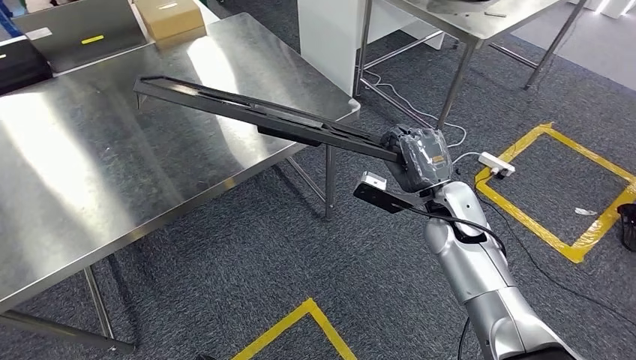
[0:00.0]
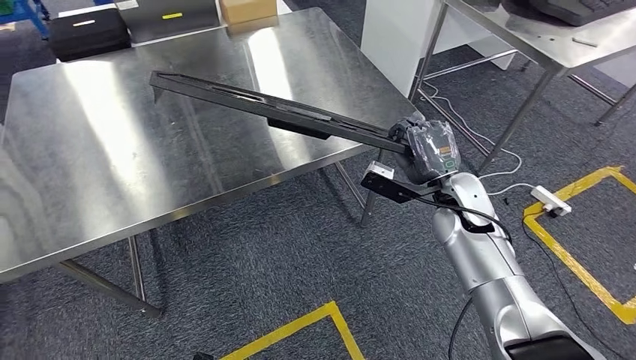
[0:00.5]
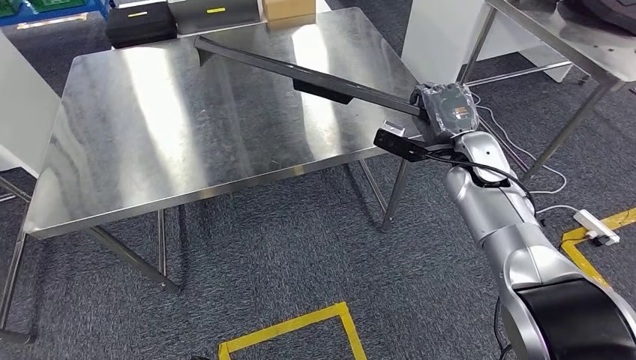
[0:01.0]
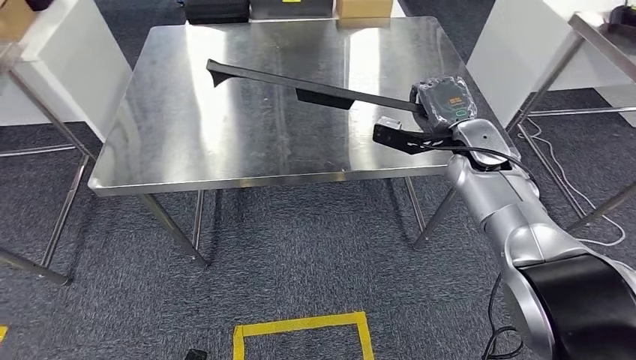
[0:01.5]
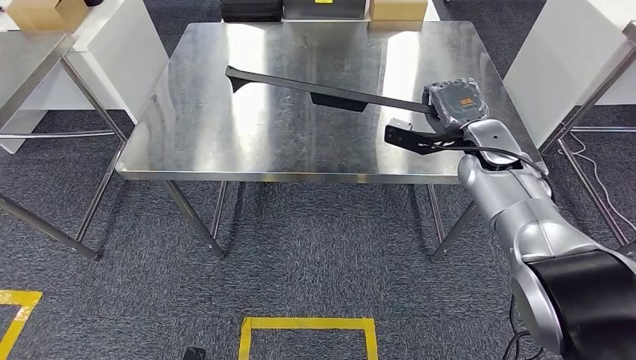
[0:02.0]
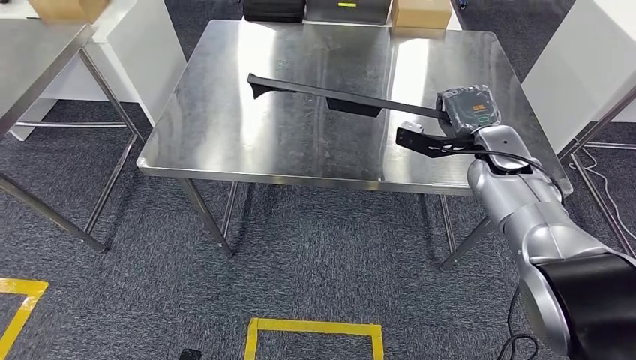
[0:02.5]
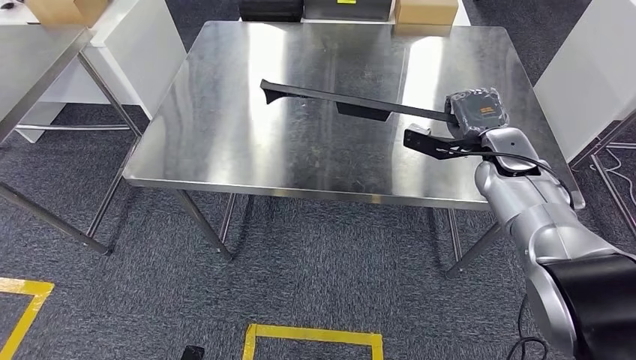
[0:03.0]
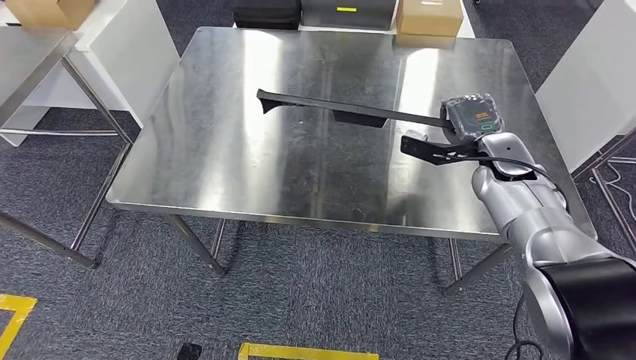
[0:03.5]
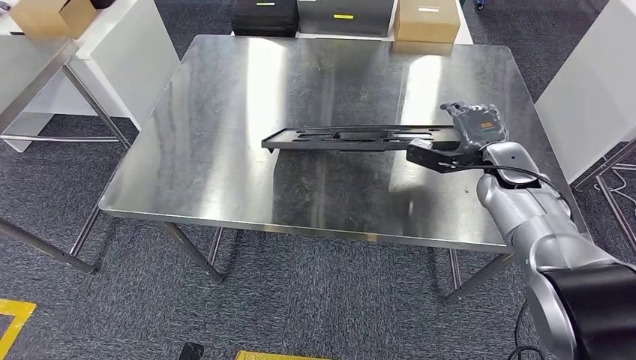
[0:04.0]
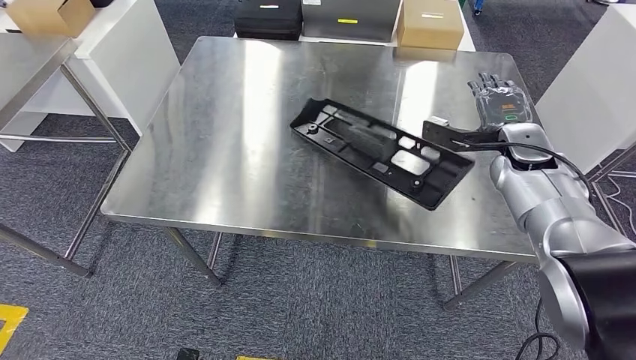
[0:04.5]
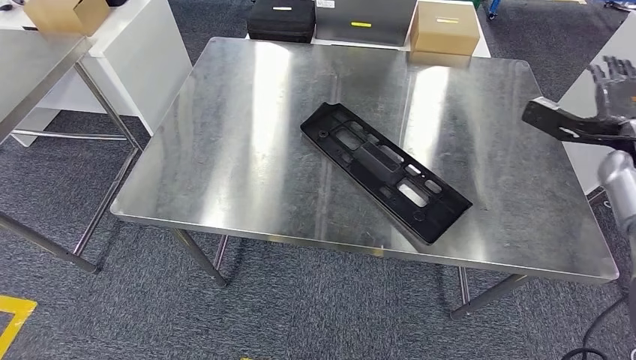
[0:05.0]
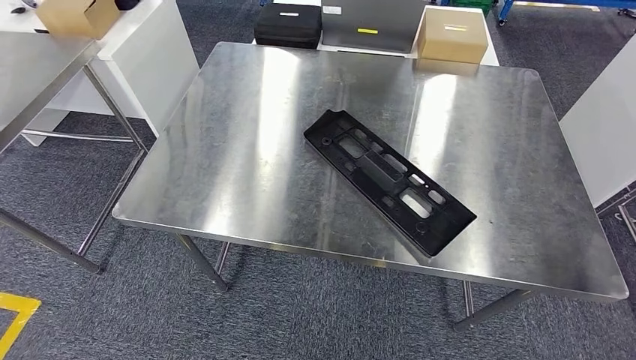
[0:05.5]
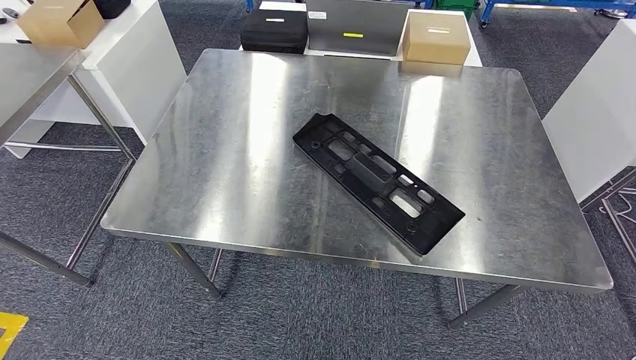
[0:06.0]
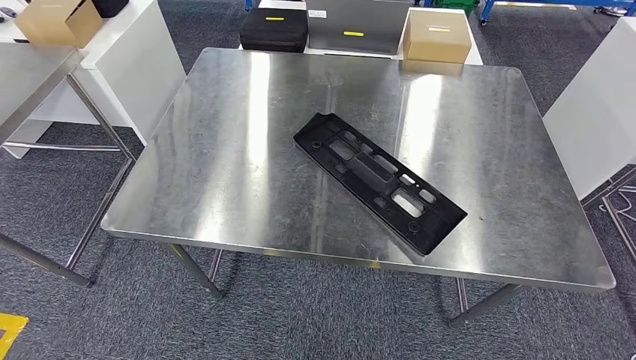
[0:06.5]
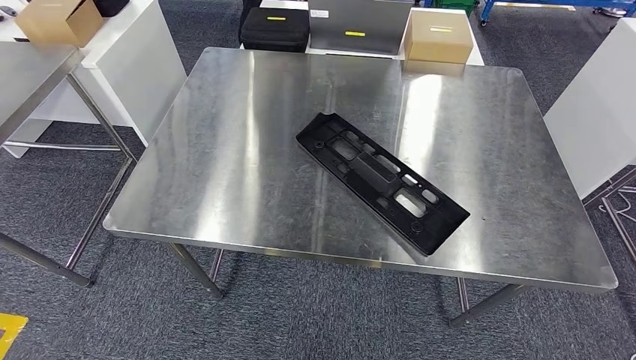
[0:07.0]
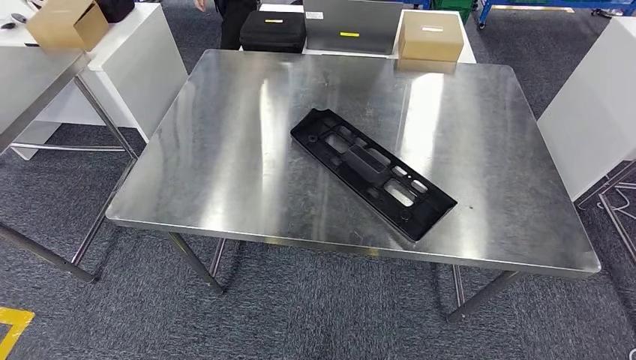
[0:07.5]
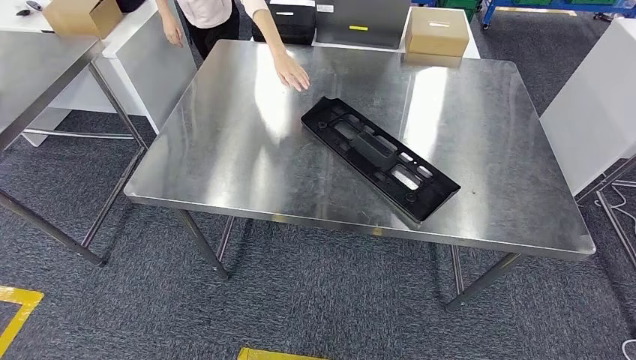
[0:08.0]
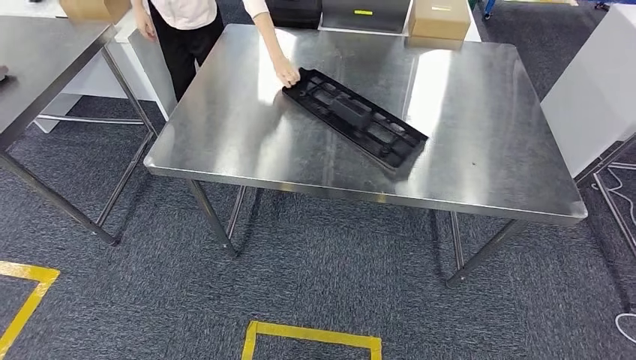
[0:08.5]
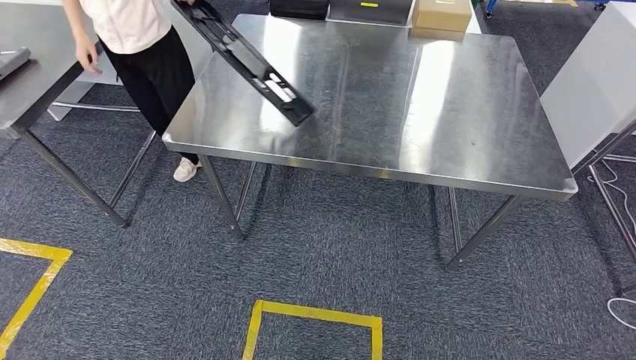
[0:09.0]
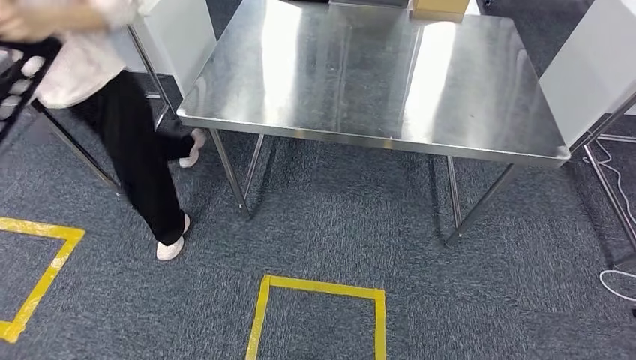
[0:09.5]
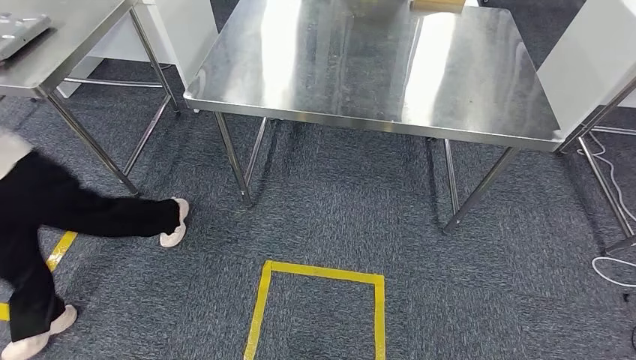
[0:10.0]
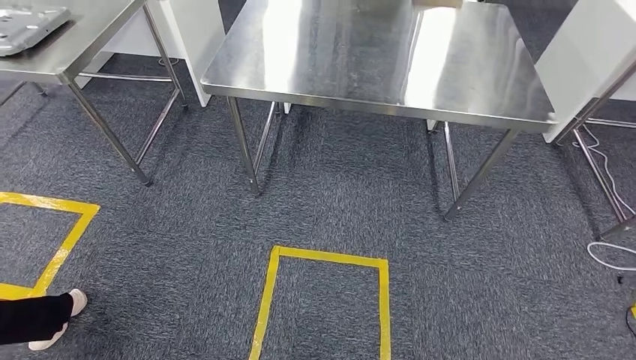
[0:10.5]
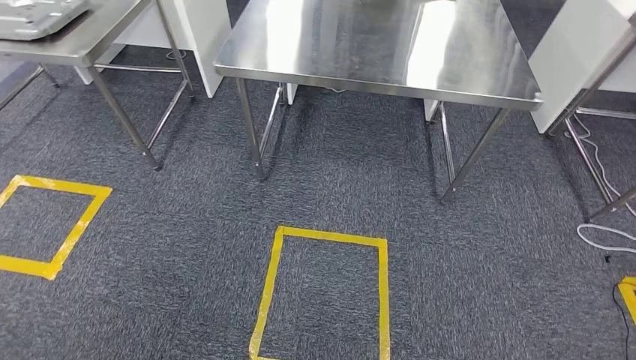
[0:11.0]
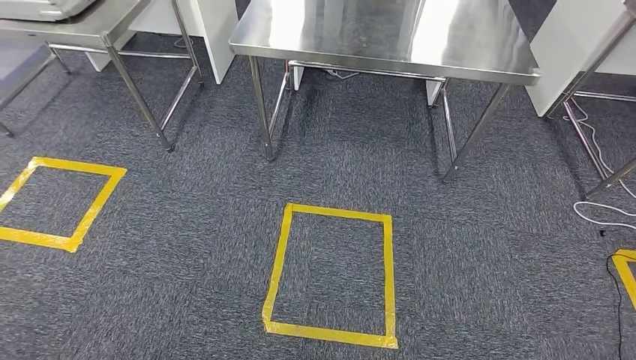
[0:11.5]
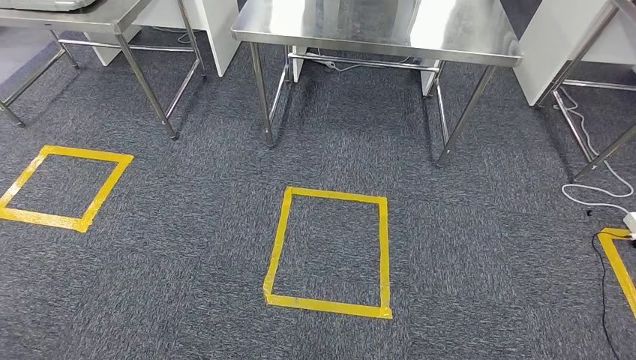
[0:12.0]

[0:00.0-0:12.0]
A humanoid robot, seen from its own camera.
Step, 0:00.0 to 0:03.5: Move the large material to the workbench.
Step, 0:04.0 to 0:06.5: Insert the large material into the corresponding slot on the workbench.

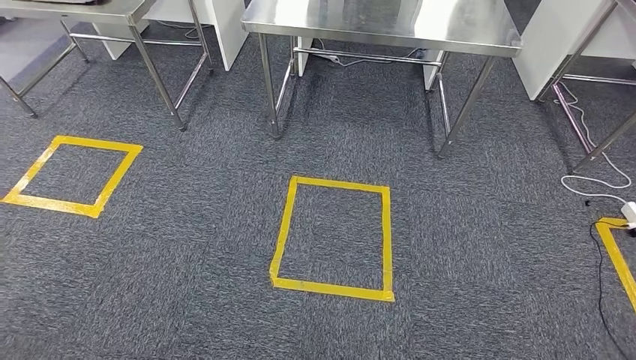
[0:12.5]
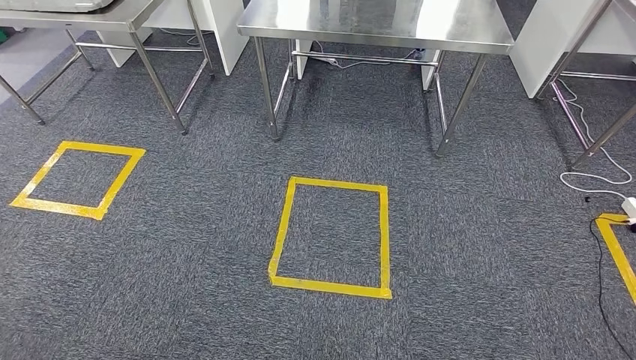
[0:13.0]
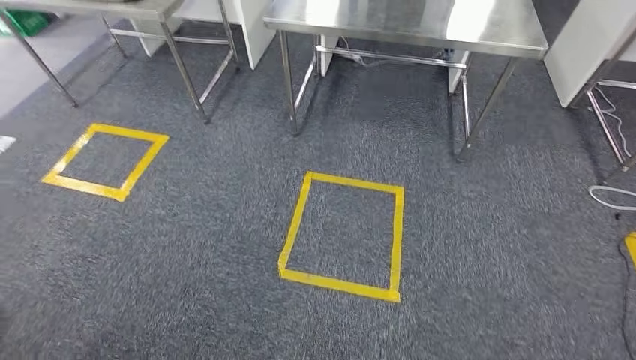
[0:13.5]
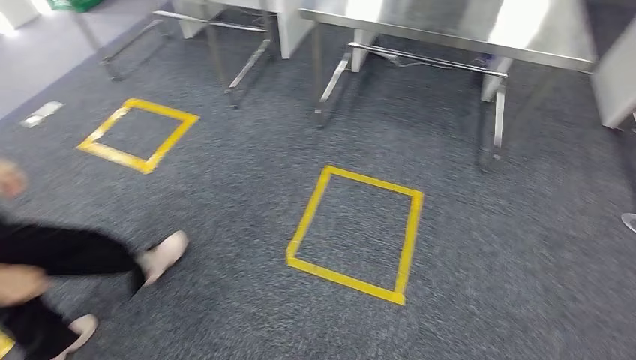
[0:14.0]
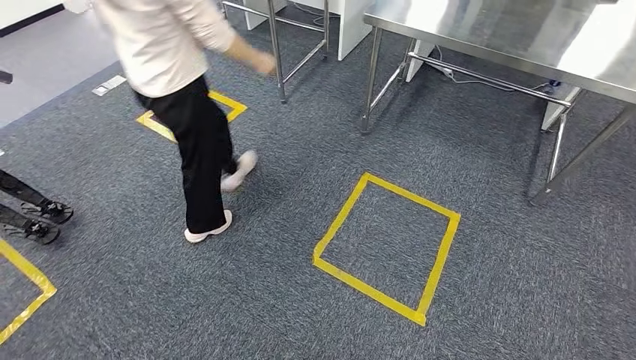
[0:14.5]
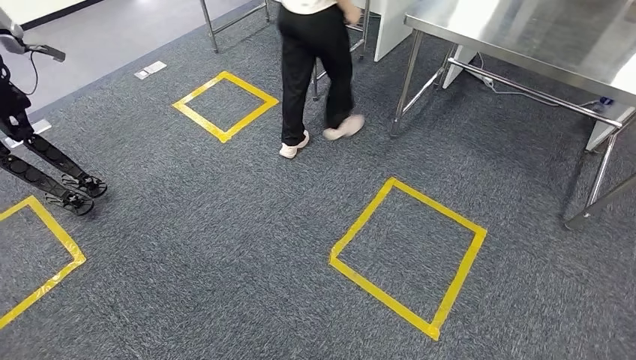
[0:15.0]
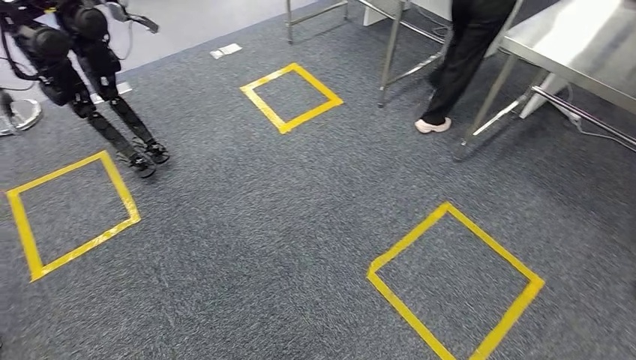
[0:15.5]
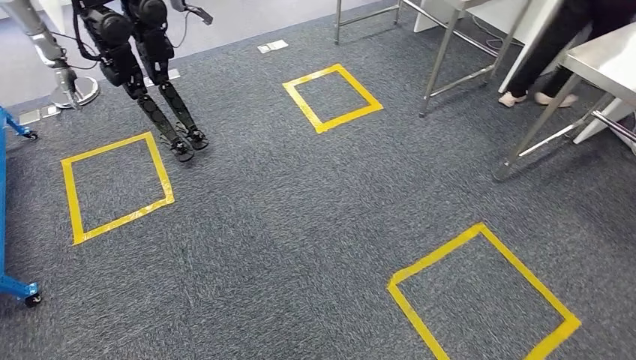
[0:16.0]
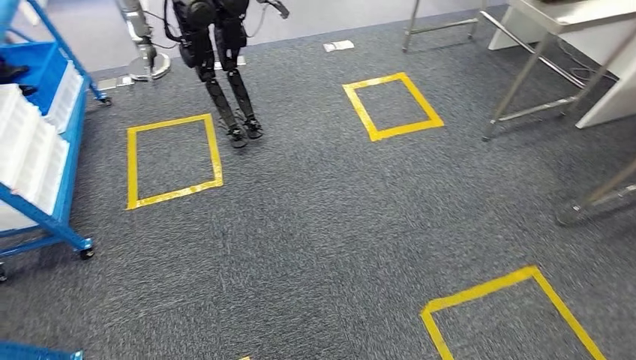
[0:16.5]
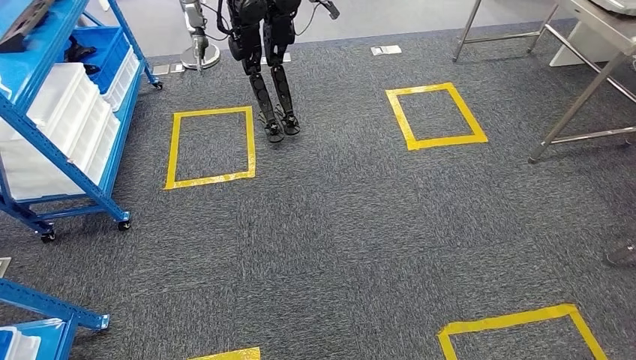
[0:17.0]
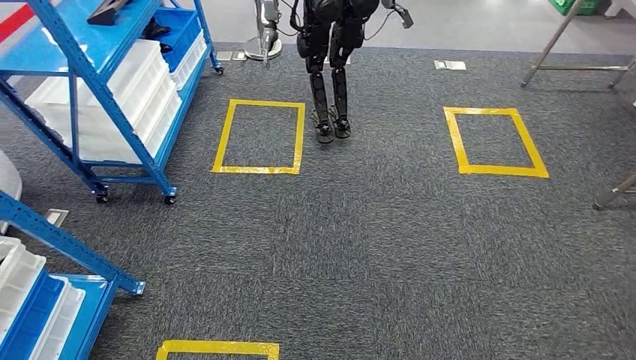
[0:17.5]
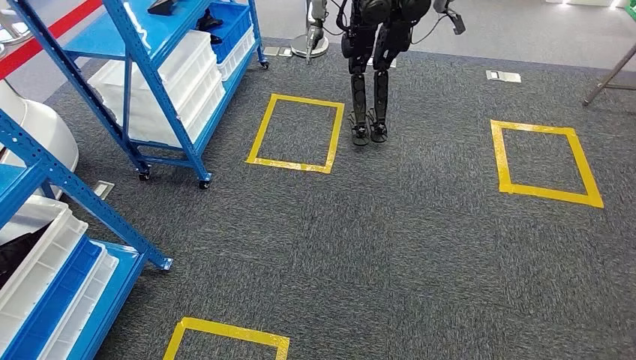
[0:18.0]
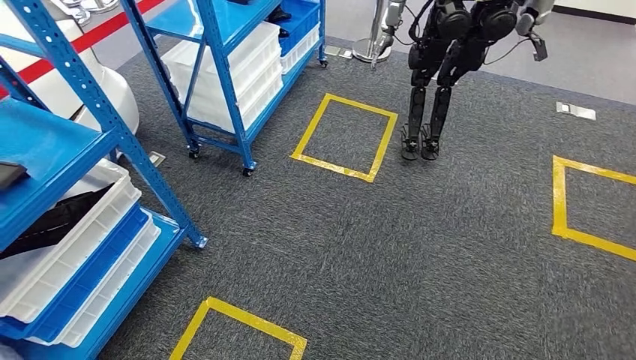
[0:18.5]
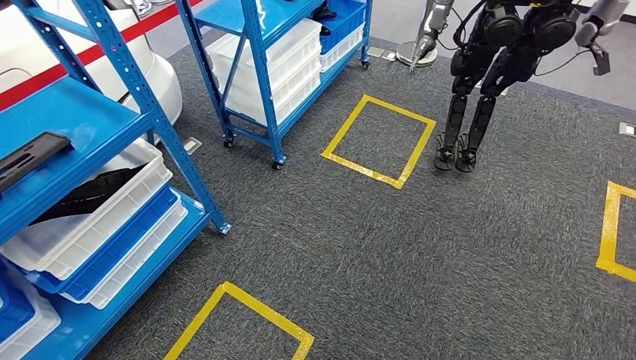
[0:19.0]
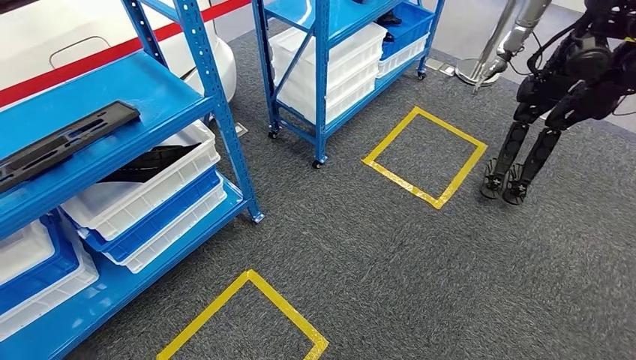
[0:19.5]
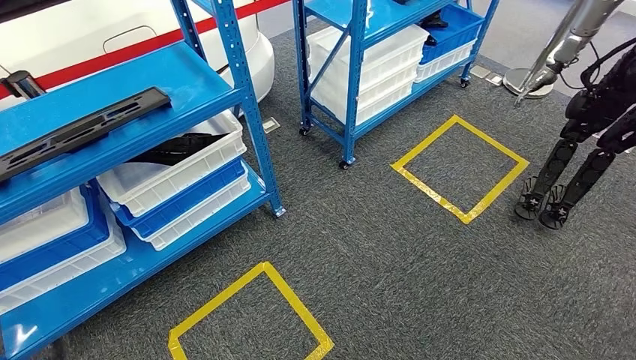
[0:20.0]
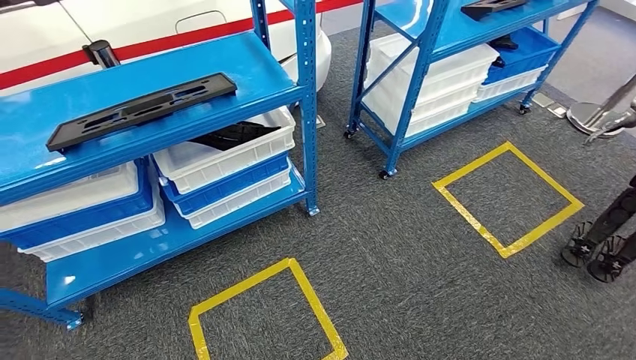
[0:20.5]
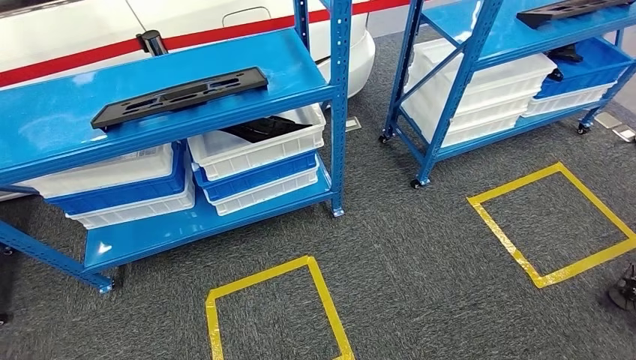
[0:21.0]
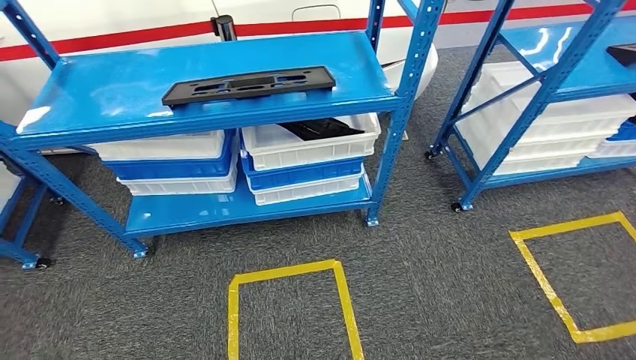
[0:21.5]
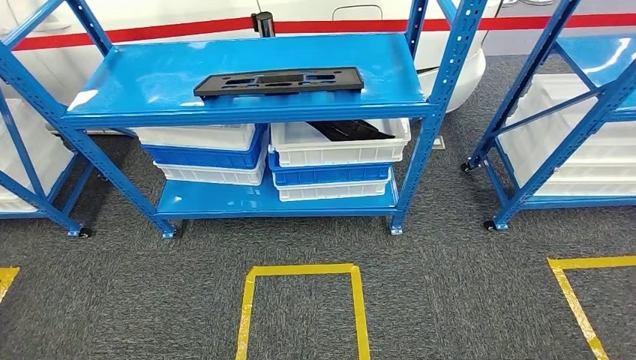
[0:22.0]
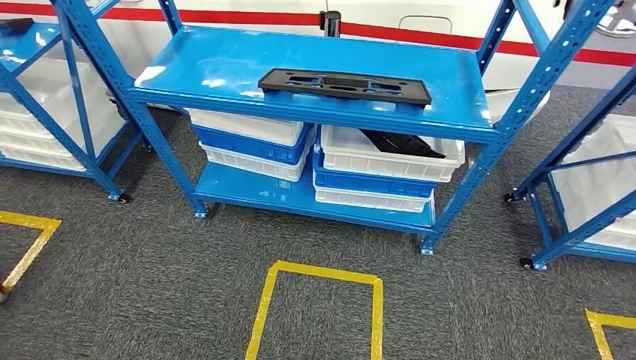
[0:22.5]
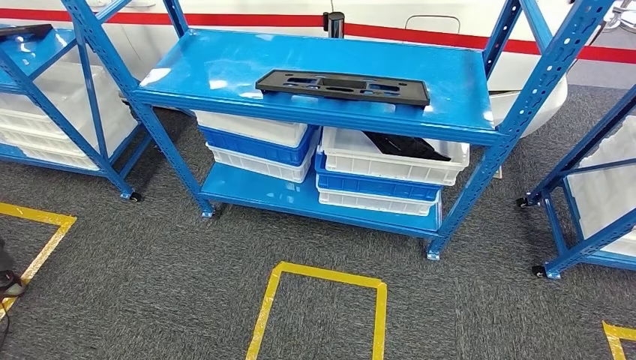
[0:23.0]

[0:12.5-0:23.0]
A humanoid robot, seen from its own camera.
Step, 0:12.5 to 0:23.0: Move to the initial position of the shelf.
